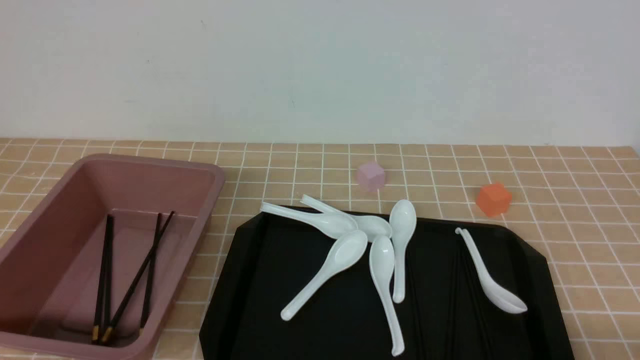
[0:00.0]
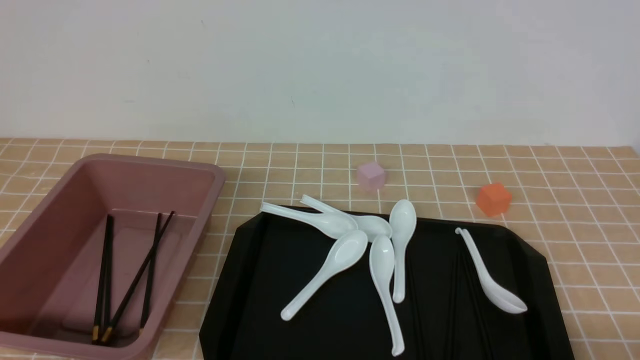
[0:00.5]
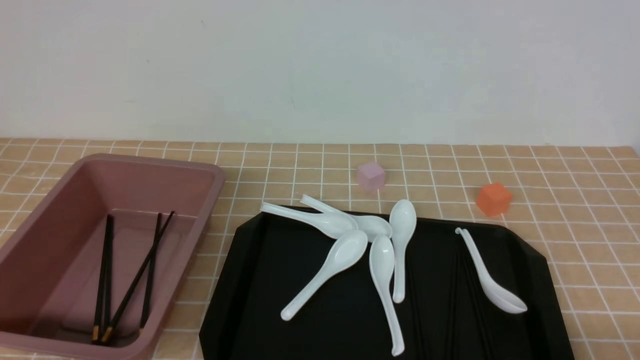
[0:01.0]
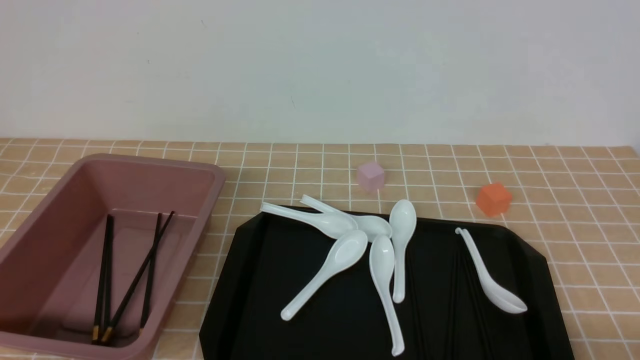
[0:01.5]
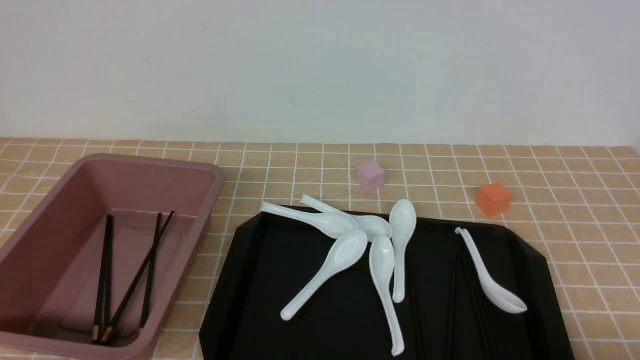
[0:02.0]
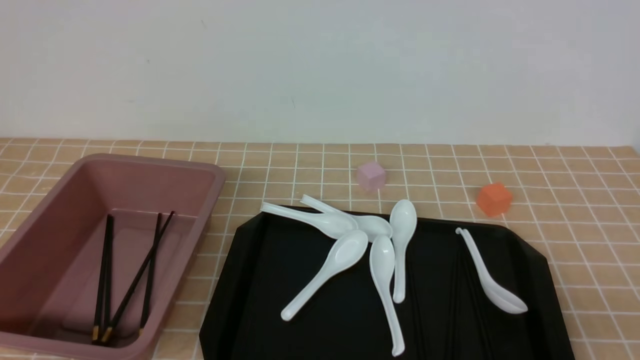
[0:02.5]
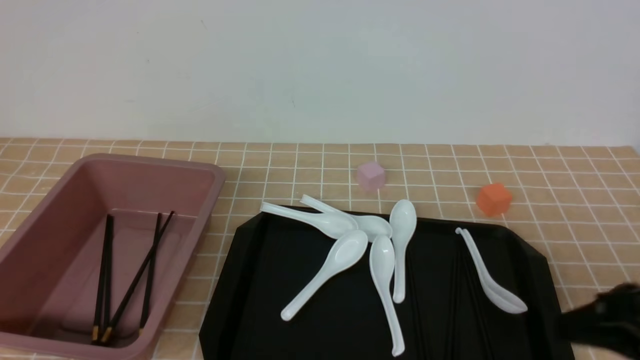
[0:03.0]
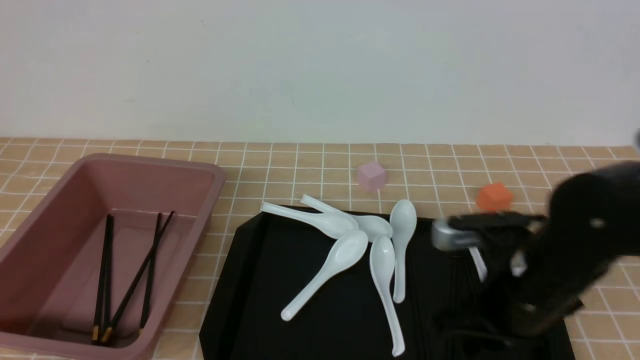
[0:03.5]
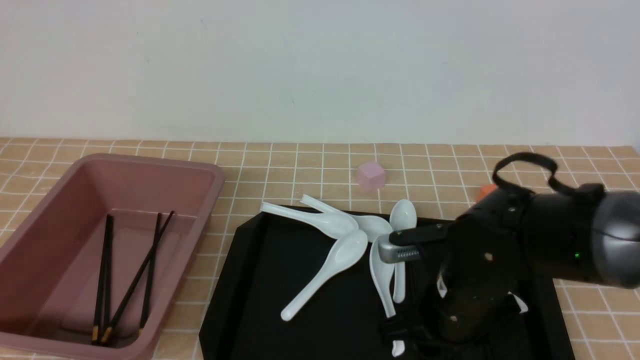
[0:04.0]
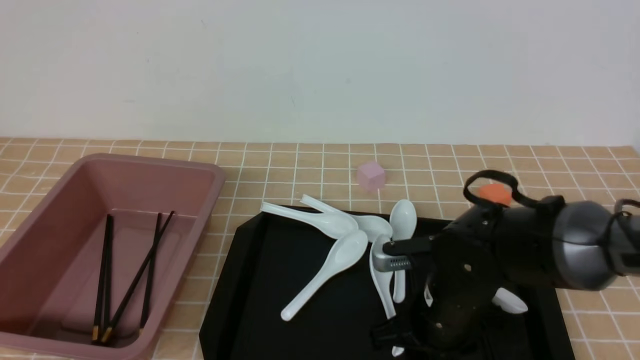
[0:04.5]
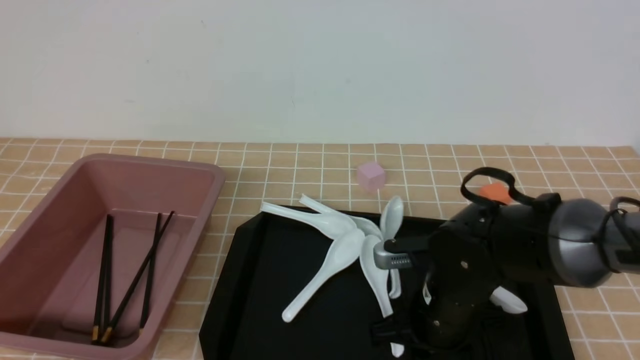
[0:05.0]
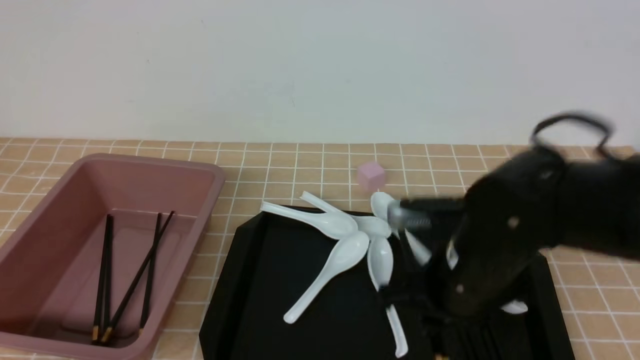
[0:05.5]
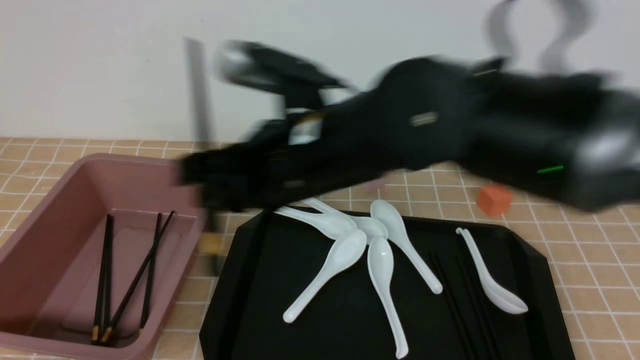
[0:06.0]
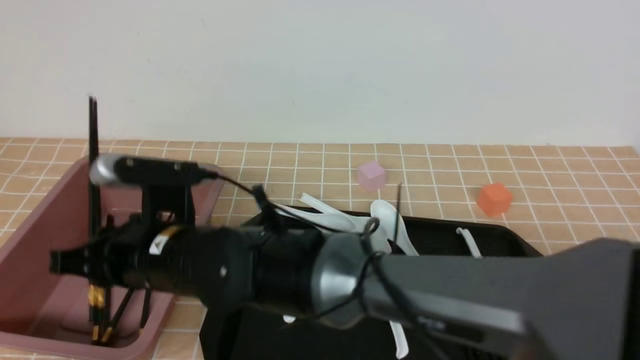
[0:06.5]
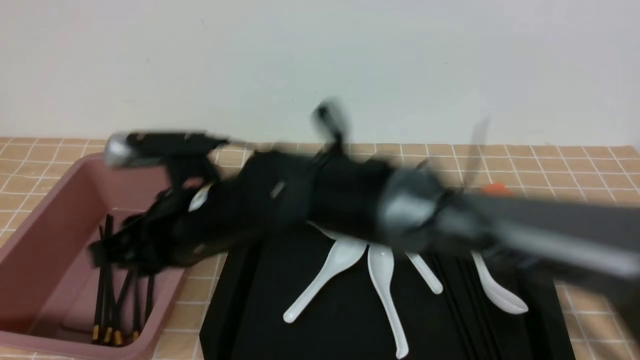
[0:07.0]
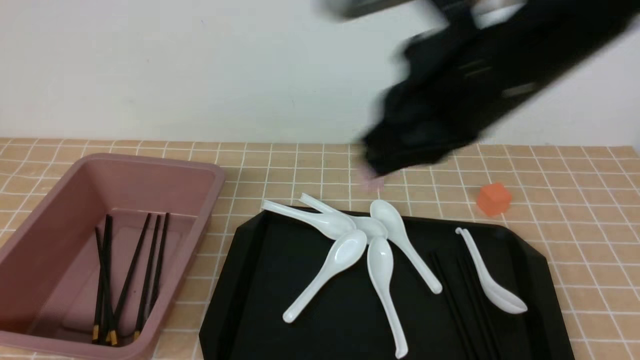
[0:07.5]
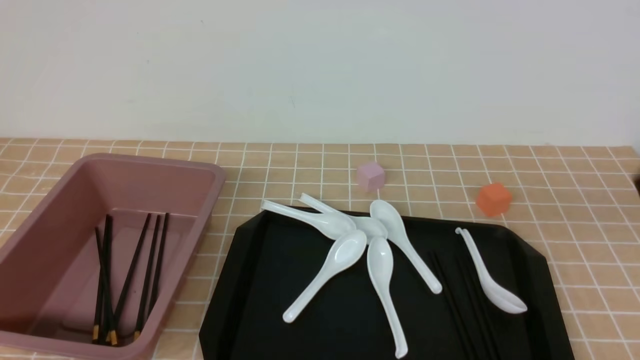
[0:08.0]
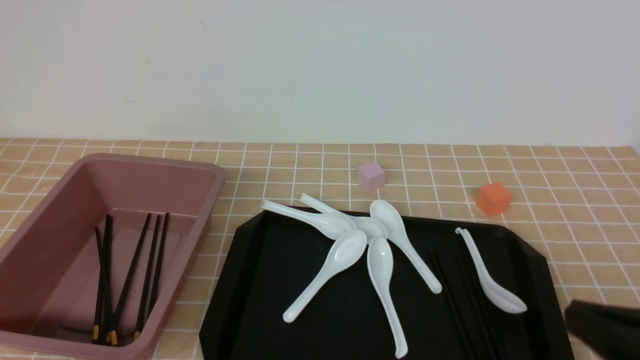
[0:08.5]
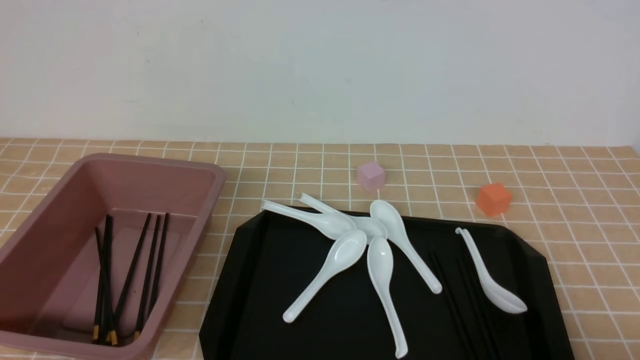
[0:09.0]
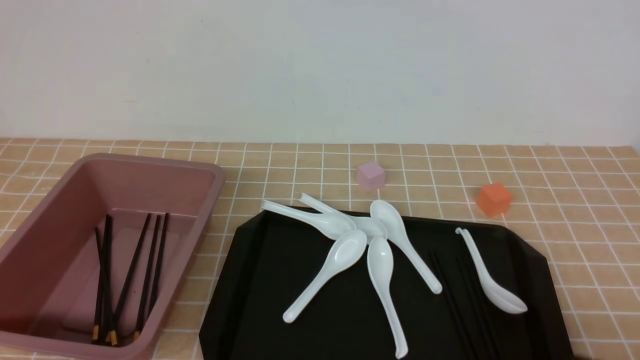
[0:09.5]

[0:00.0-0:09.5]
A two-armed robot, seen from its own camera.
Step, 0:00.0 to 0:05.5: use the right arm to grab a pair of chopsticks.
Step, 0:06.0 to 0:07.0: use the right arm to put the chopsticks into the lunch box.
0:02.0 to 0:04.0: The right gripper goes about 25 cm forward and to the left, and closes, then opens again.
0:04.0 to 0:05.5: The right gripper travels upward by about 5 cm, and closes its fingers.
0:05.5 to 0:07.5: The right gripper goes some 20 cm upward, moves approximately 25 cm to the left and comes back, and closes its fingers.
0:07.5 to 0:09.5: The right gripper travels downward, to the right and backward by about 30 cm.

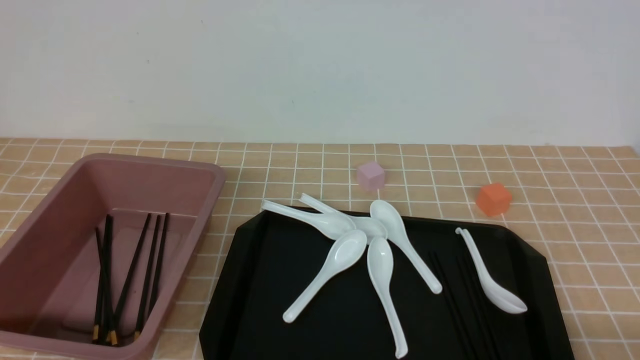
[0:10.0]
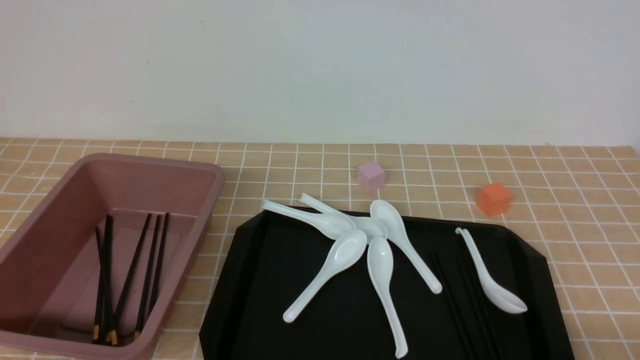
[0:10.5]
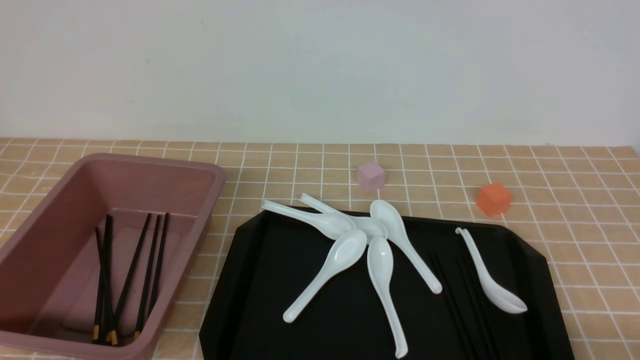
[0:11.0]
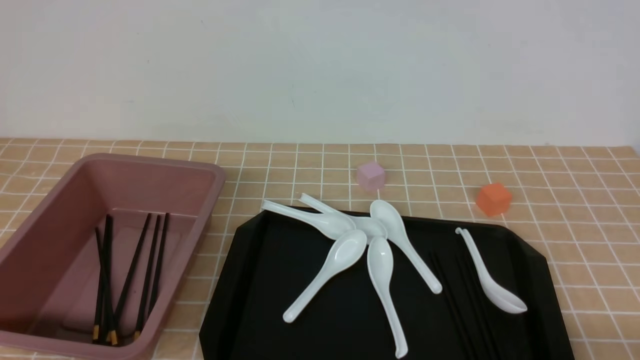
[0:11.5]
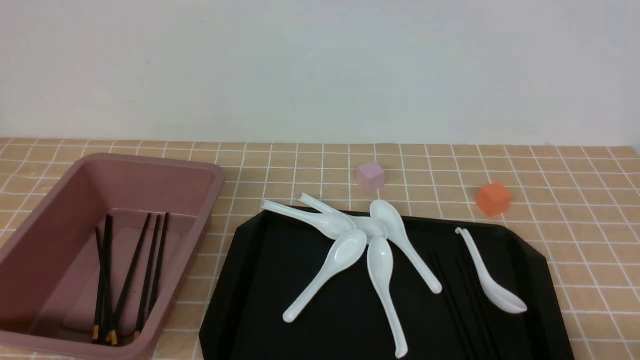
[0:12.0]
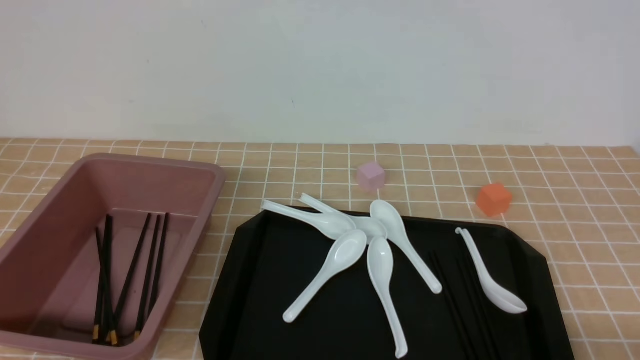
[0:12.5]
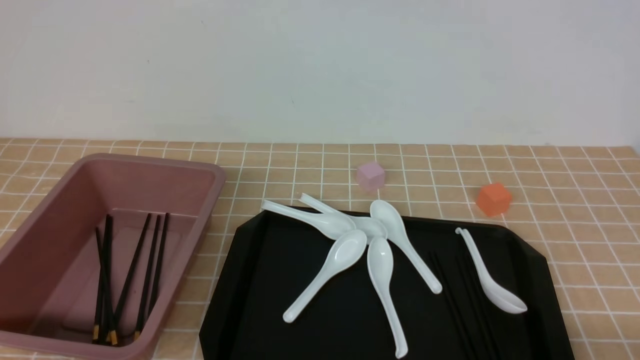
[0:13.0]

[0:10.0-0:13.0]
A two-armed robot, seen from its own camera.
0:11.5 to 0:13.0: Neither gripper changes place.
